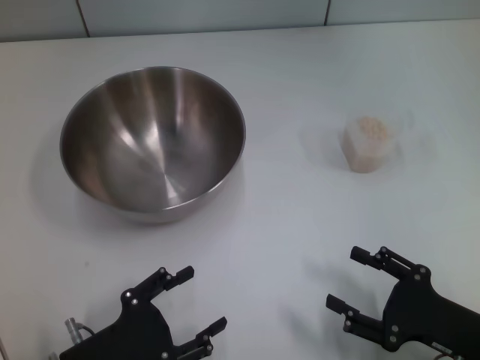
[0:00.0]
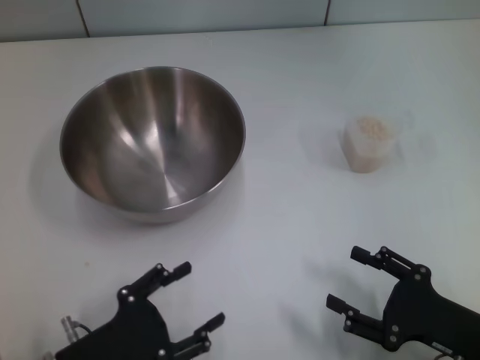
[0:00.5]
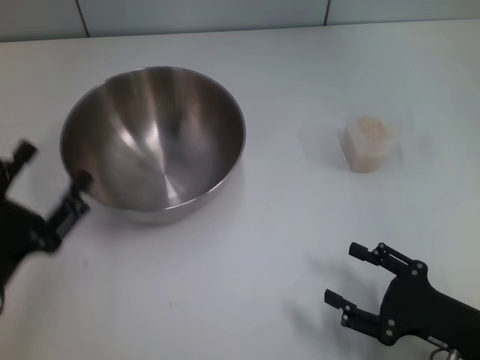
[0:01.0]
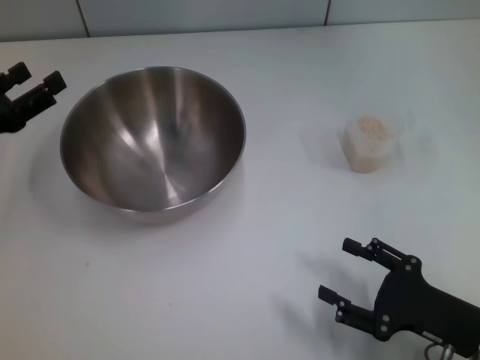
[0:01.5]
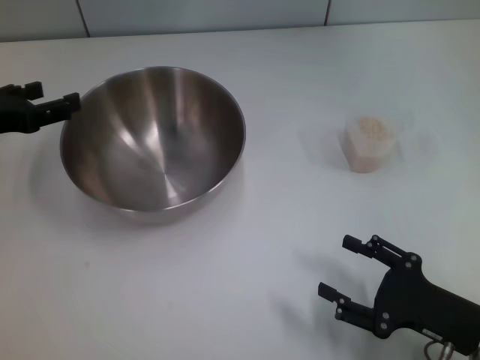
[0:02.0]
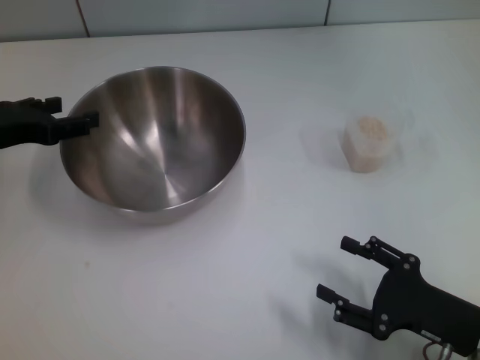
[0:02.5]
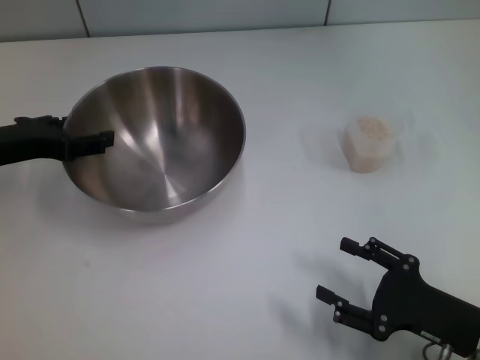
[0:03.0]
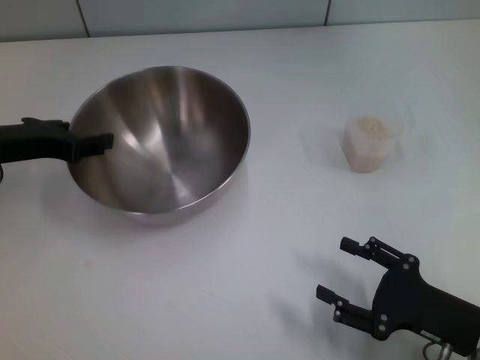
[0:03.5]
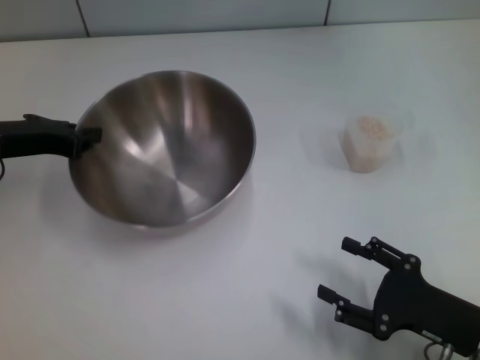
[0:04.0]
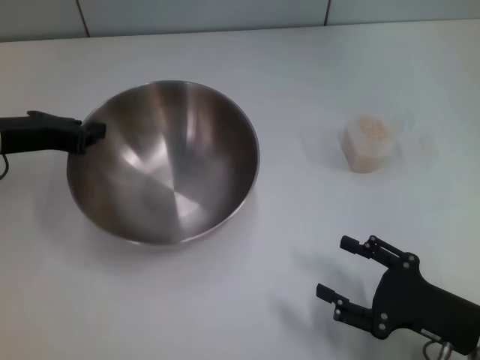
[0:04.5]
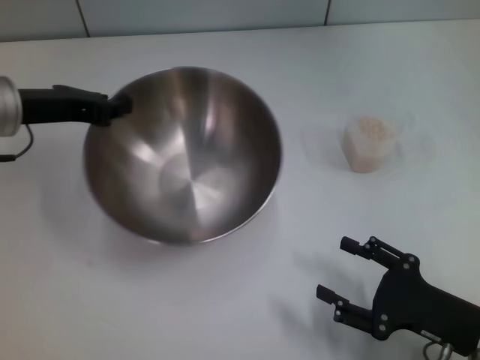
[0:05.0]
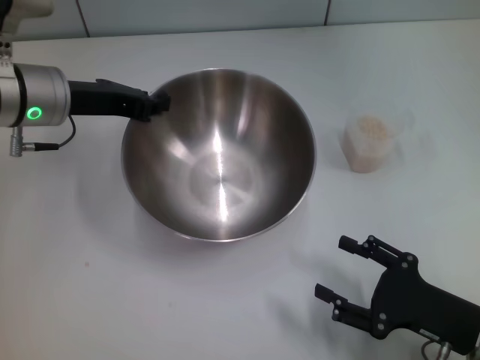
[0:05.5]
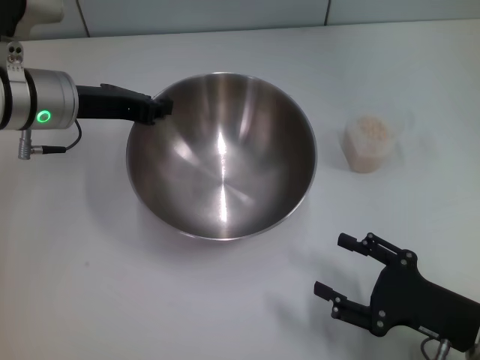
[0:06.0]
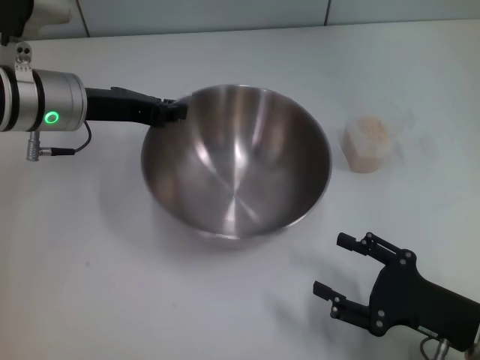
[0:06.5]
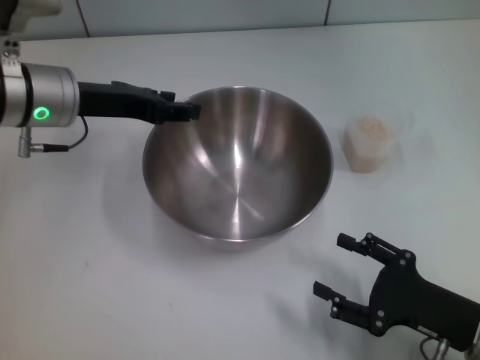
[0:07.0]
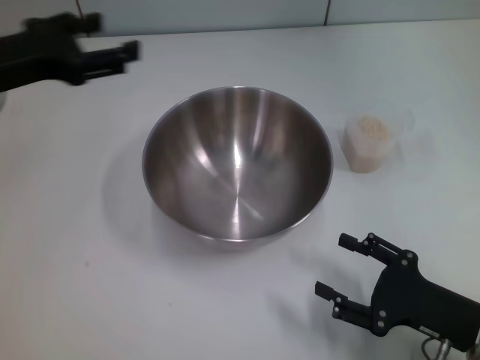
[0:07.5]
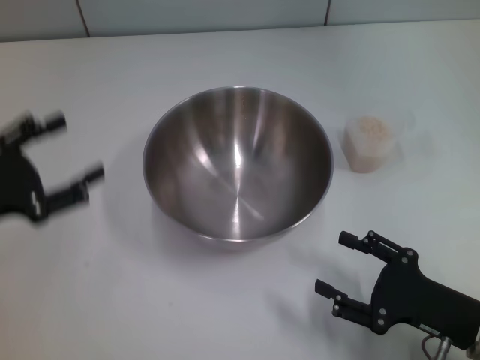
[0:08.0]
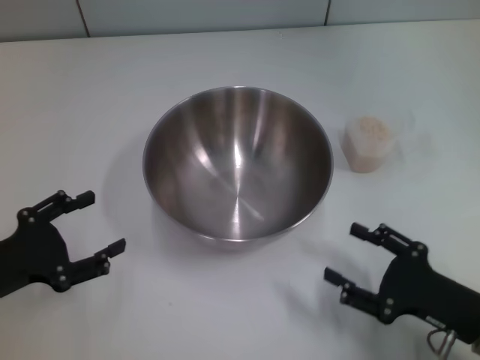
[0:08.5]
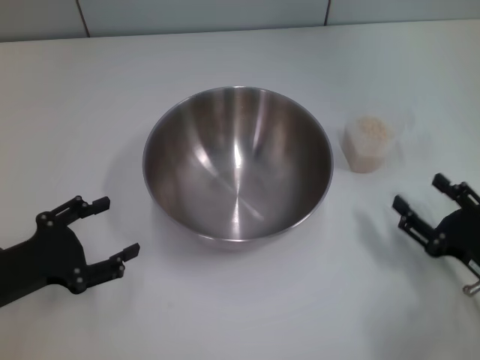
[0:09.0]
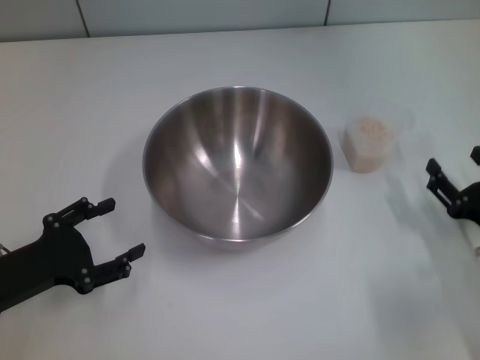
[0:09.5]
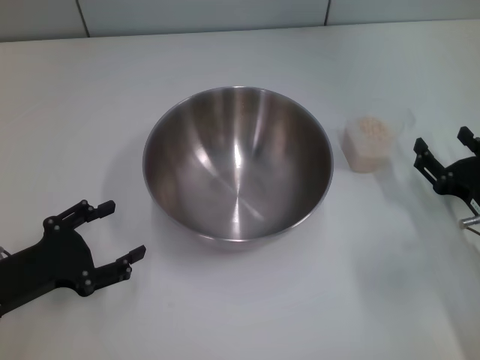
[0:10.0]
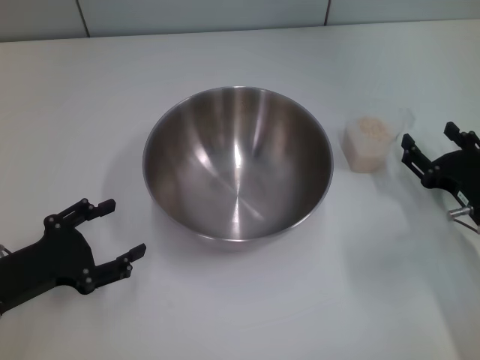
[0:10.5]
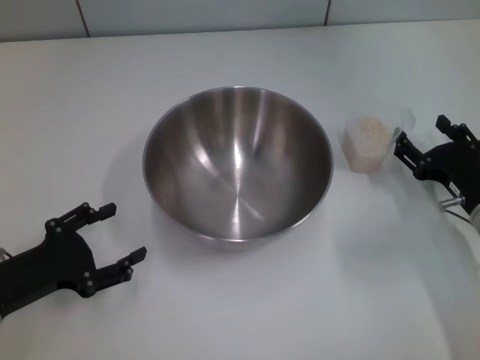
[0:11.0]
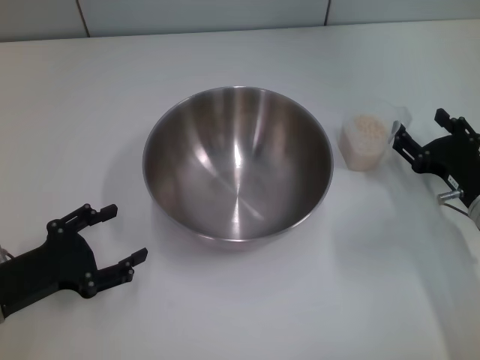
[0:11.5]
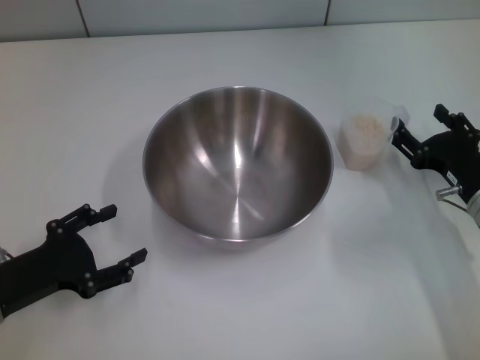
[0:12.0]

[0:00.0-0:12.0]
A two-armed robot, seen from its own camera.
Task of the whole recording: Place the bowl in the middle of the table with one hand and pour the rice from the grain cup into it with the other hand.
Step, 0:00.0 to 0:04.5: Pick up the bowl with the left gripper.
Step, 0:05.0 to 0:07.0: Place the bowl in the center of view with the left gripper.
0:00.0 to 0:02.0: The left gripper moves forward, upward and to the left, roughly 25 cm.
0:02.0 to 0:04.0: The left gripper closes up.
0:04.0 to 0:06.0: The left gripper is displaced to the right by about 5 cm.
0:06.0 to 0:08.0: The left gripper travels backward and to the left by some 20 cm, and opens its fingers.
0:08.0 to 0:10.0: The right gripper shifts about 10 cm forward. The left gripper goes approximately 5 cm downward.
0:10.0 to 0:12.0: The grippers stay close to where they were, moving slightly.

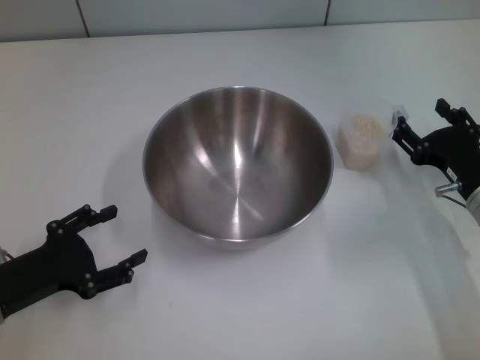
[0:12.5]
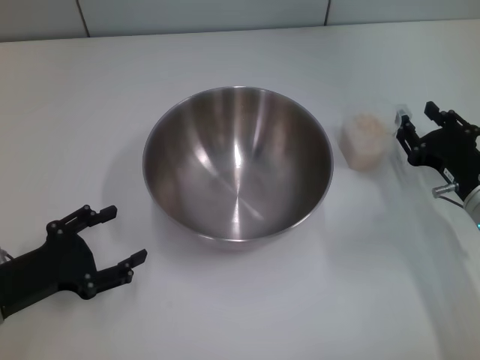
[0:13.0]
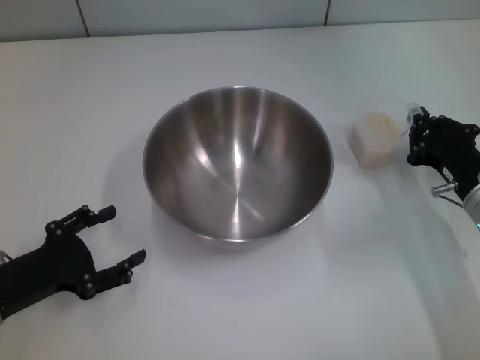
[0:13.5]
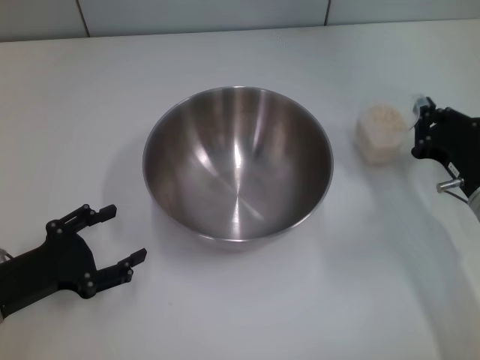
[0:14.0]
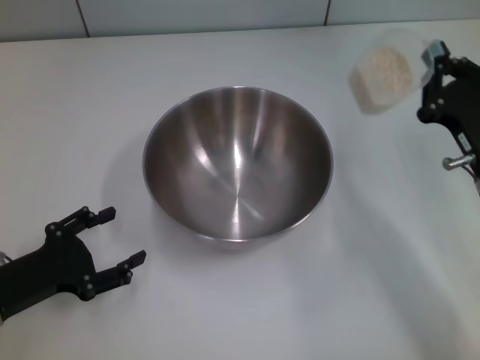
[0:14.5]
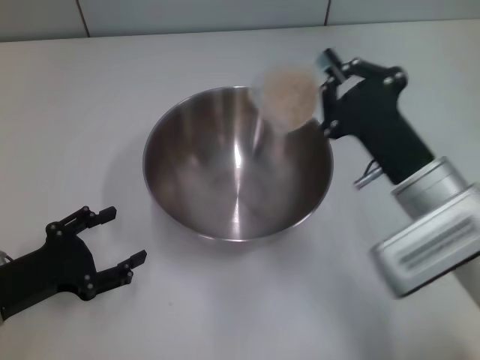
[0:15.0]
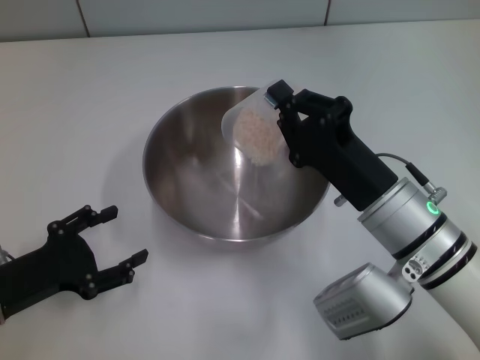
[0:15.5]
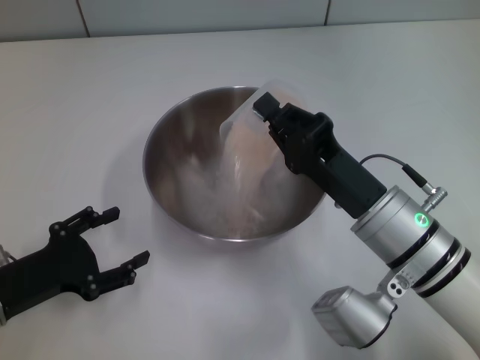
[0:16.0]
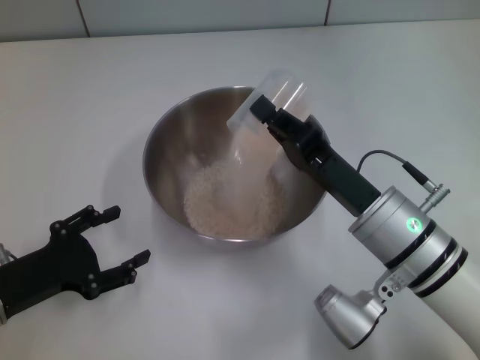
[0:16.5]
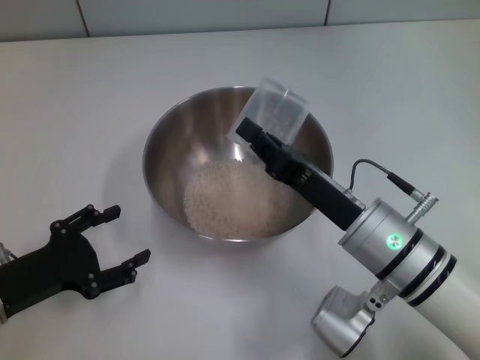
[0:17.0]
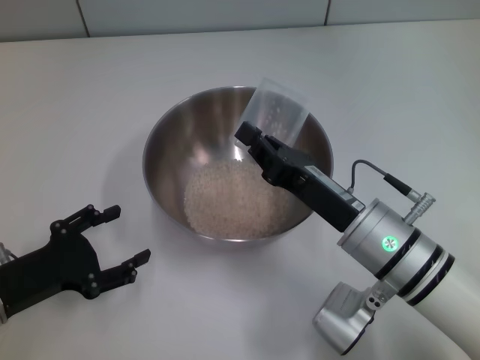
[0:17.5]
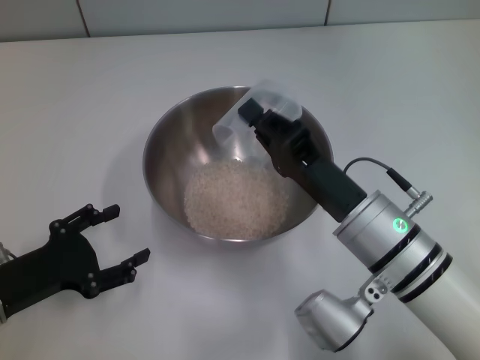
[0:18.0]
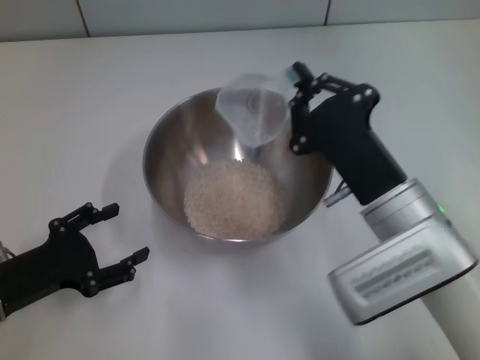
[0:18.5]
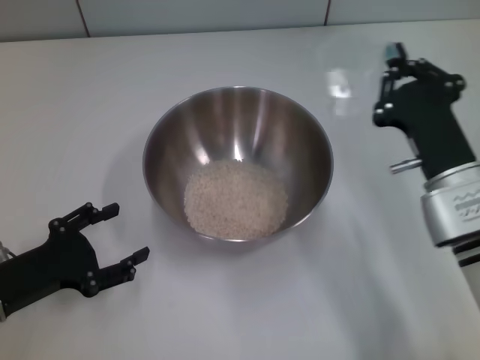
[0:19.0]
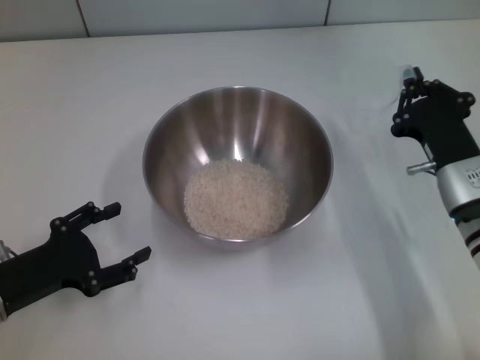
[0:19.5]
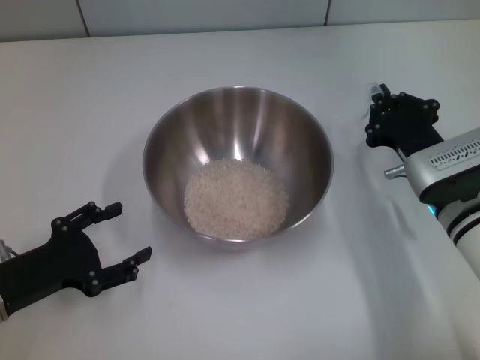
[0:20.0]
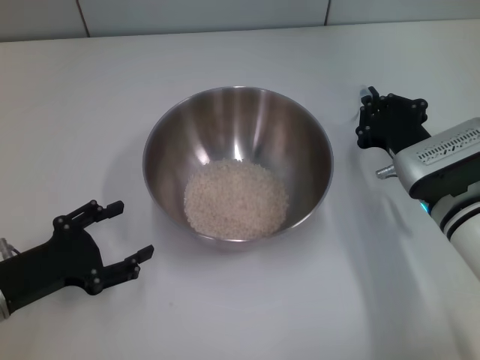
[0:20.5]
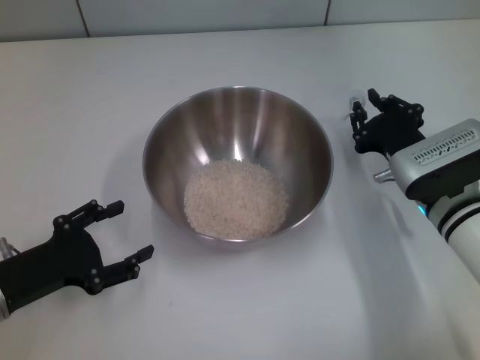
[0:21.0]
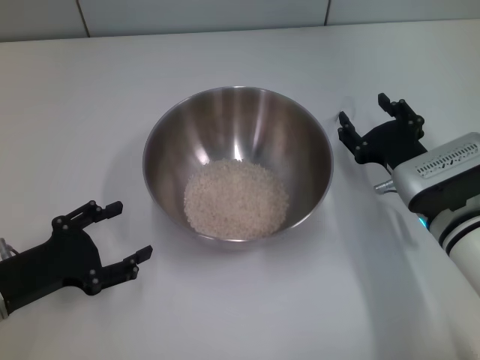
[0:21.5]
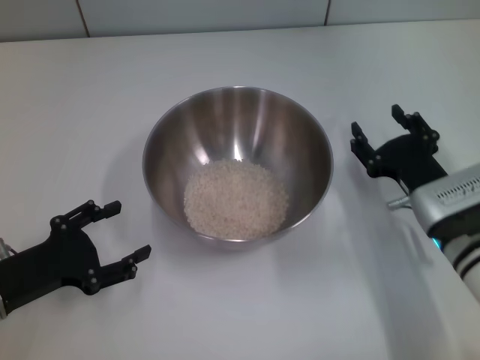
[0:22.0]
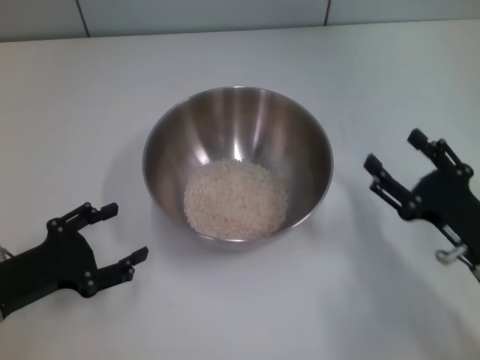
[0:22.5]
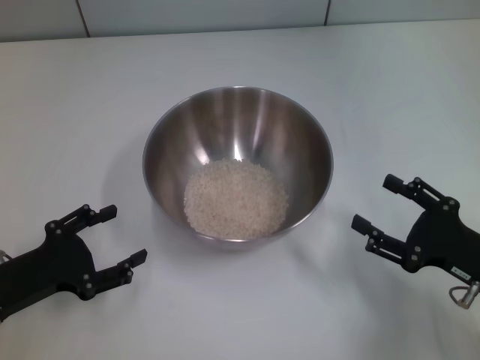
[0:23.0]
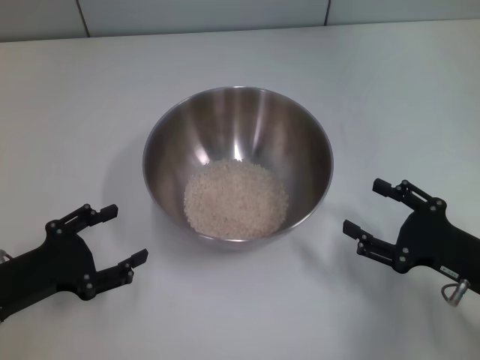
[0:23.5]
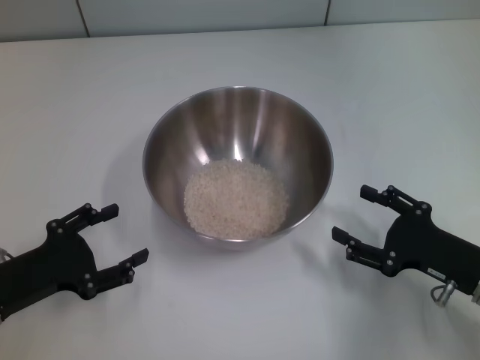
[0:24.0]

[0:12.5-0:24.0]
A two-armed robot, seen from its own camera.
Task of the whole recording: Place the bowl in the middle of the table with one hand and pour the rice from the grain cup into it with the other hand.
Step, 0:15.0 to 0:19.0: Pour the rice from the cup into the bowl with the right gripper.
Step, 0:19.5 to 0:22.0: Place the cup on the table with the right gripper.
0:12.5 to 0:14.5: The right gripper changes place by some 5 cm, and closes up.
0:14.5 to 0:16.5: The right gripper heads to the left, covering approximately 10 cm.
0:18.5 to 0:20.0: The right gripper goes about 10 cm to the right and forward.
0:20.0 to 0:22.0: The right gripper opens up.
0:22.0 to 0:24.0: The right gripper heads backward and to the right, covering approximately 10 cm.

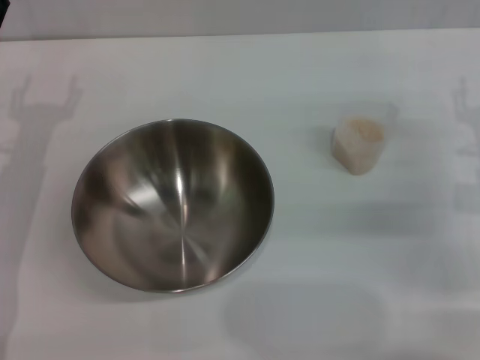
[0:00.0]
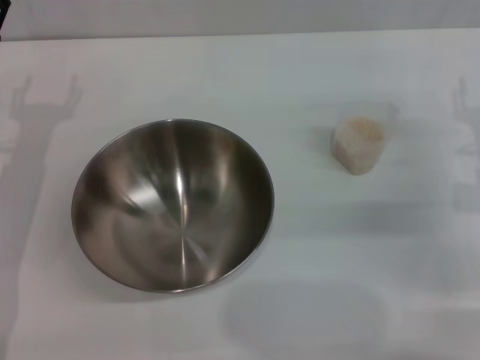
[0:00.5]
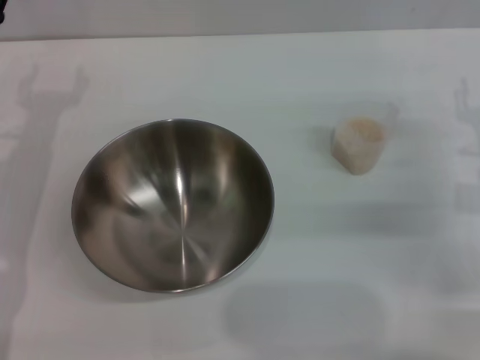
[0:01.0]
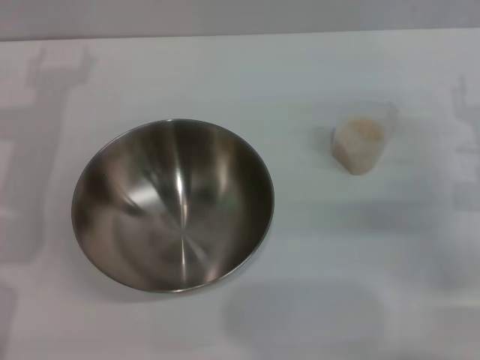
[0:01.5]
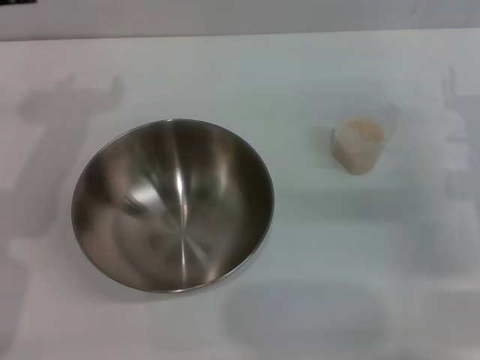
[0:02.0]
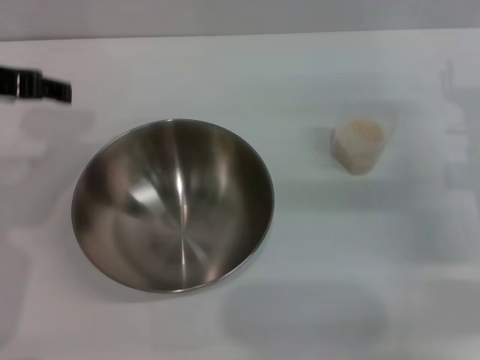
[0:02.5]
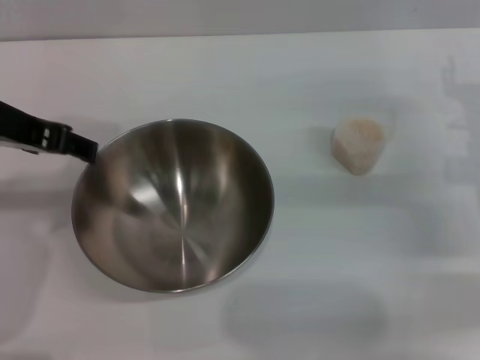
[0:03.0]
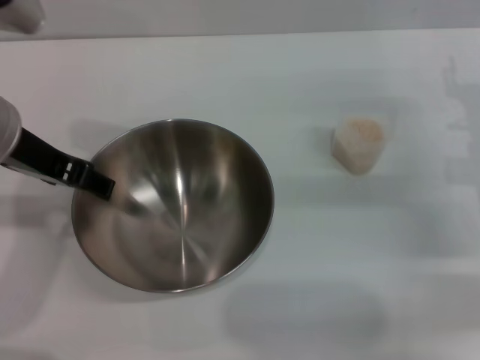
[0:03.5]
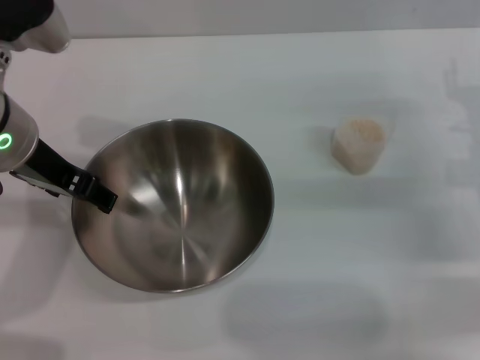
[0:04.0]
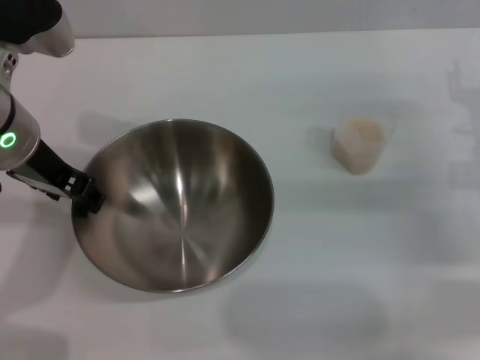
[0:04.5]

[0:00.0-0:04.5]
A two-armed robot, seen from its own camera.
Task of the whole recording: Place the bowl in the middle of the table with one hand and pour the rice from the grain cup into it with the other hand.
0:02.0 to 0:04.5: The left gripper travels downward by roughly 5 cm.
